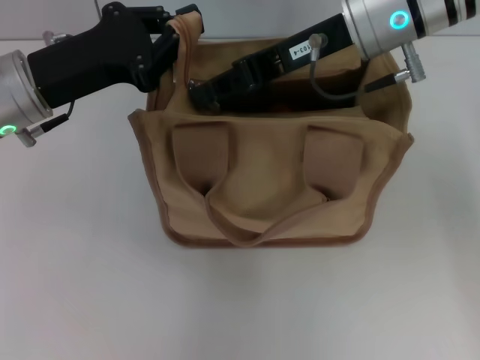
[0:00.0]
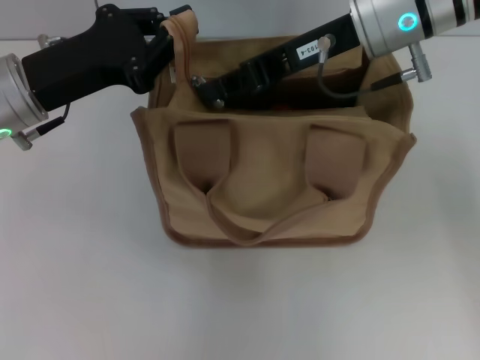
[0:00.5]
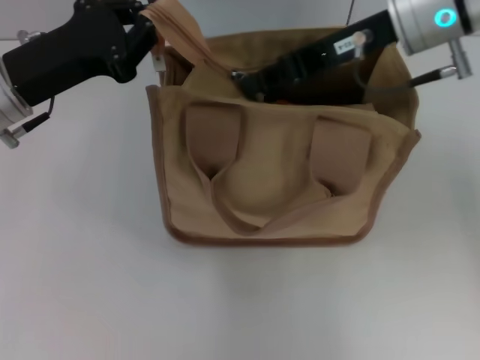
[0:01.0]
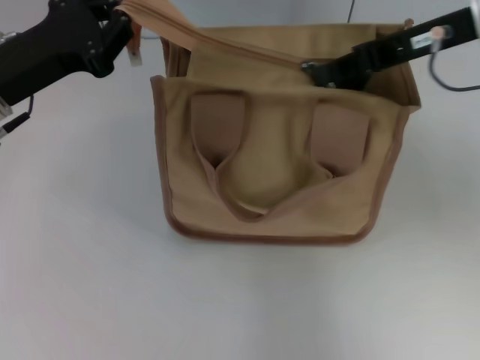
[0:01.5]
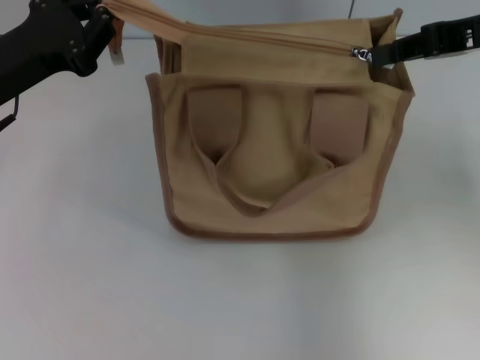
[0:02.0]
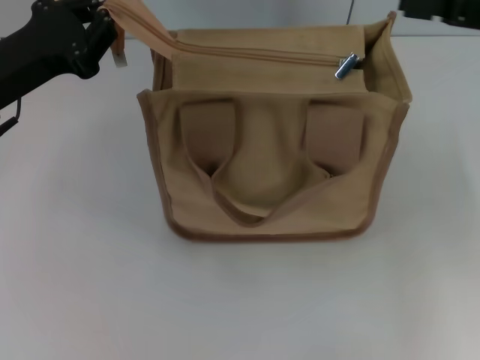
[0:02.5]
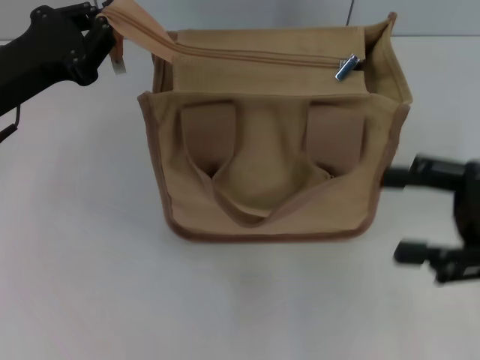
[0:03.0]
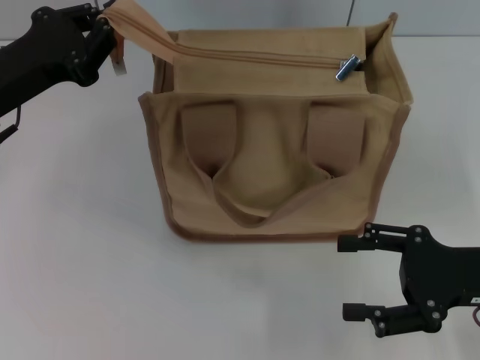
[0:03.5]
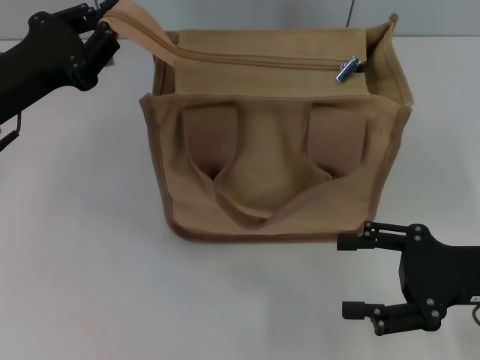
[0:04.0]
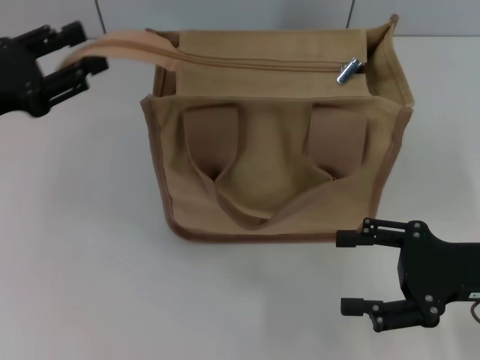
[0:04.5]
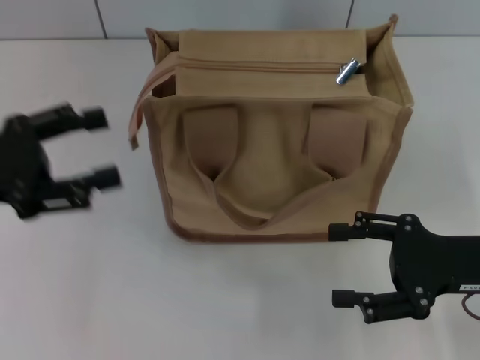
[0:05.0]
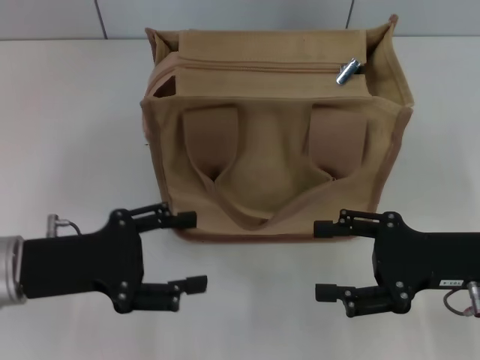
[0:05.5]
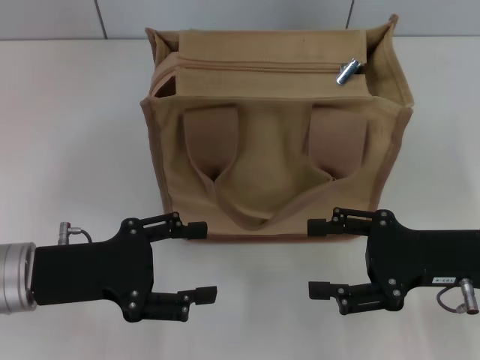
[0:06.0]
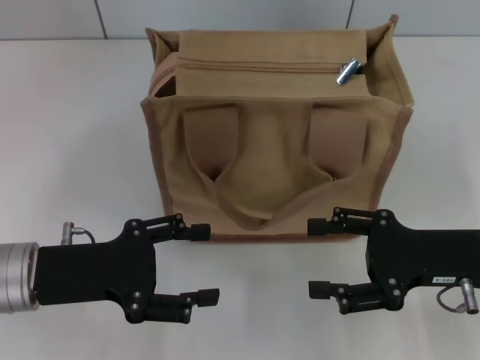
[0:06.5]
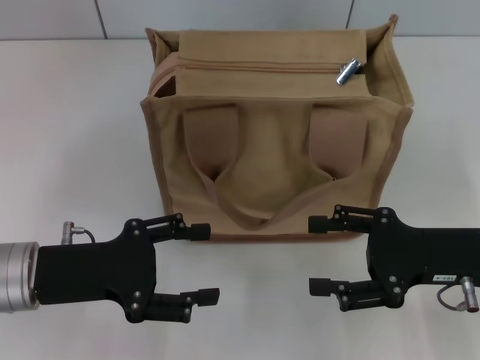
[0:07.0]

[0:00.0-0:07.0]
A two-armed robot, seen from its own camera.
Step, 0.0 to 2.0 s: Pull up the zipper with your right hand.
Step, 2.5 to 4.5 s: Grab the zipper with your left hand.
0.0 to 2.0 s: The right gripper is displaced to the right by roughly 15 cm.
2.0 to 3.5 s: The right gripper shifts approximately 20 cm downward and backward, and opens its fingers.
3.5 to 5.0 s: The left gripper shifts some 5 cm backward, and opens up.
5.0 to 7.0 s: The left gripper moves downward and to the right, approximately 10 cm.

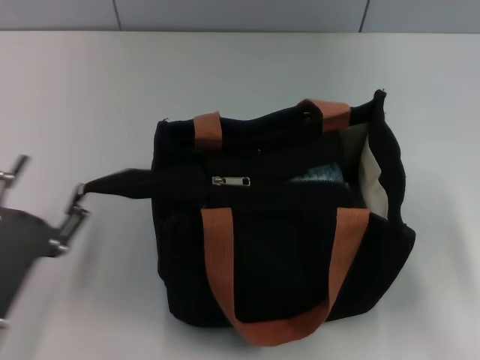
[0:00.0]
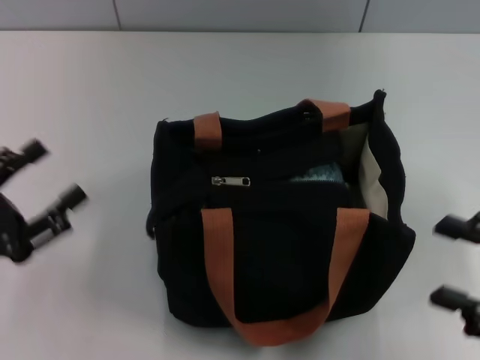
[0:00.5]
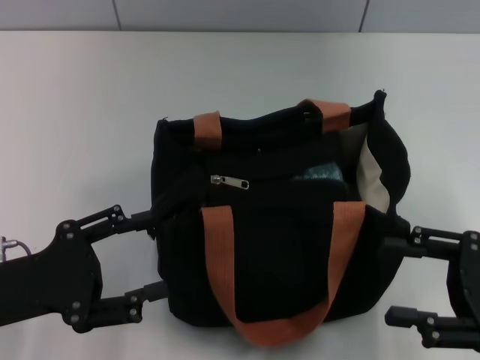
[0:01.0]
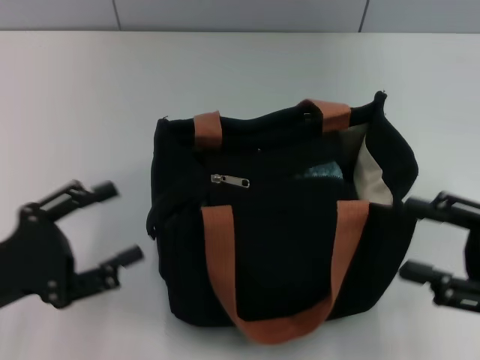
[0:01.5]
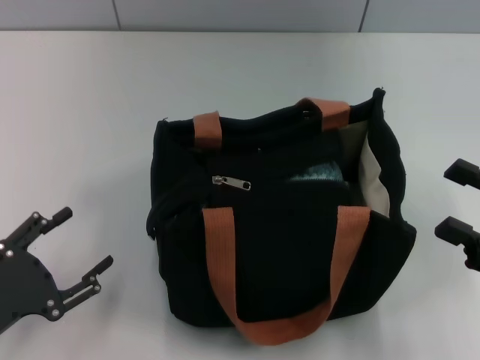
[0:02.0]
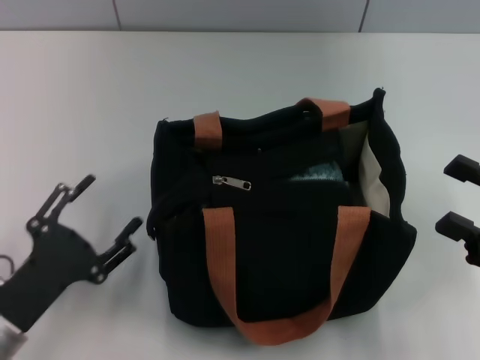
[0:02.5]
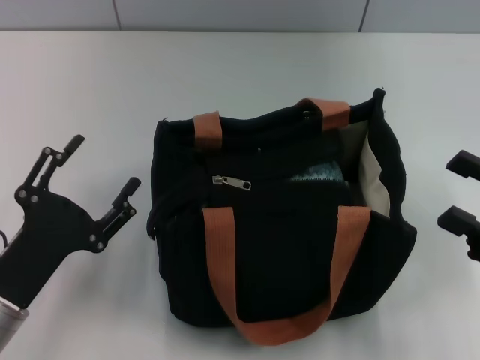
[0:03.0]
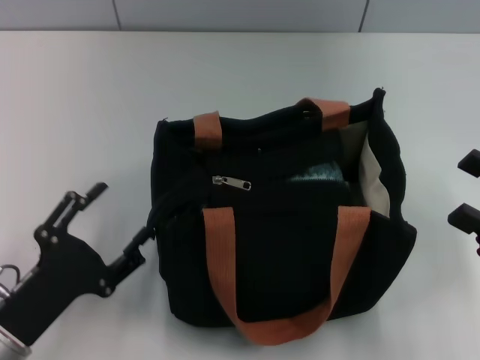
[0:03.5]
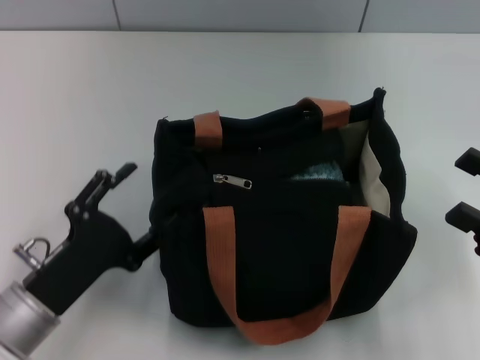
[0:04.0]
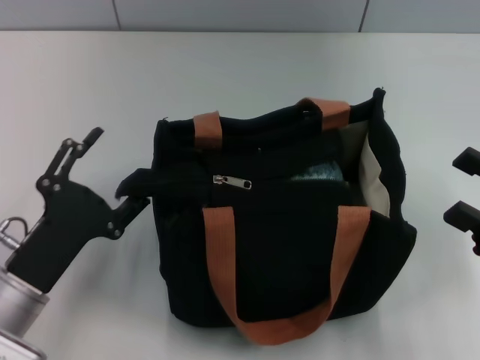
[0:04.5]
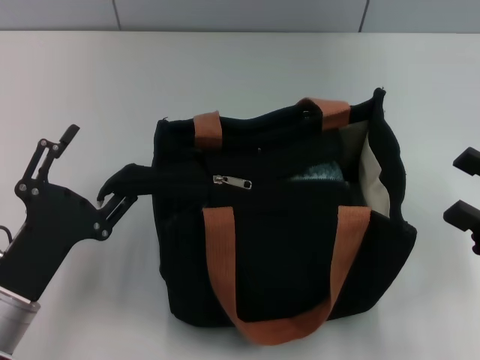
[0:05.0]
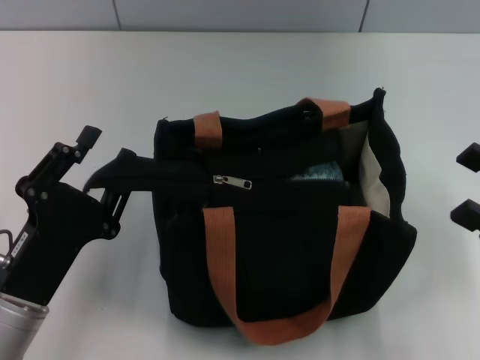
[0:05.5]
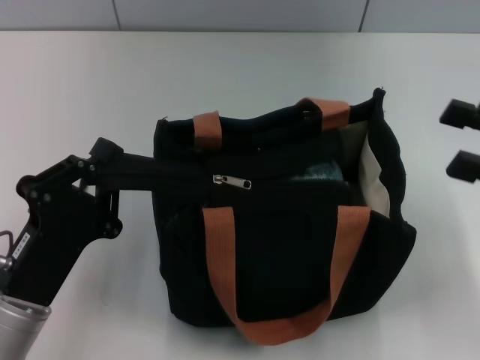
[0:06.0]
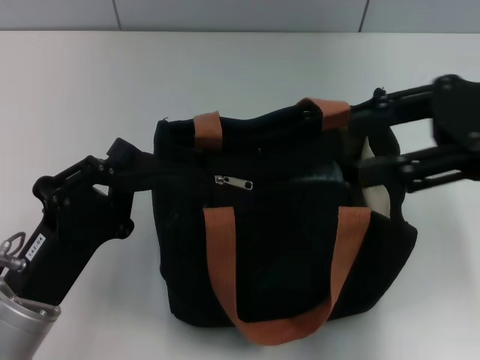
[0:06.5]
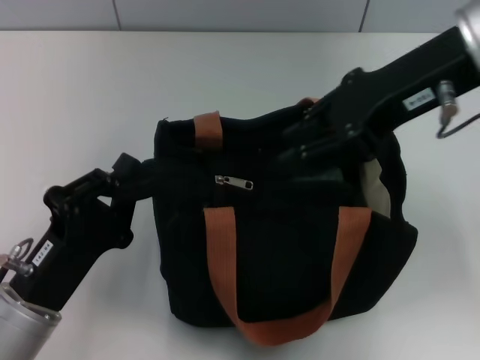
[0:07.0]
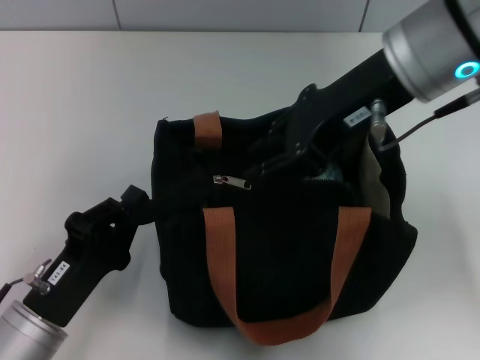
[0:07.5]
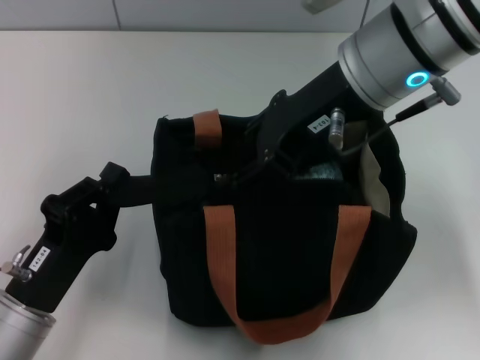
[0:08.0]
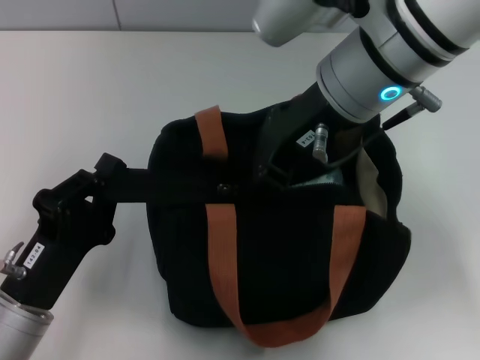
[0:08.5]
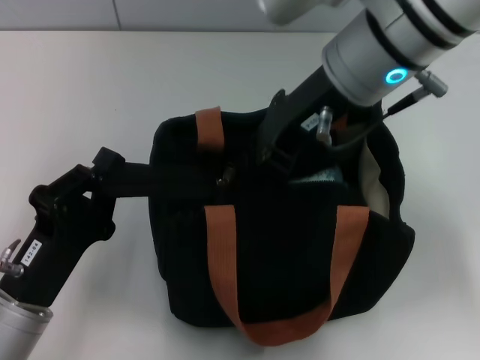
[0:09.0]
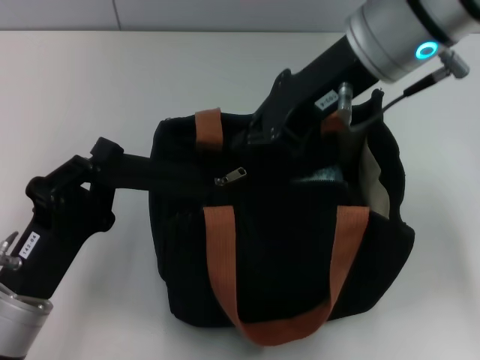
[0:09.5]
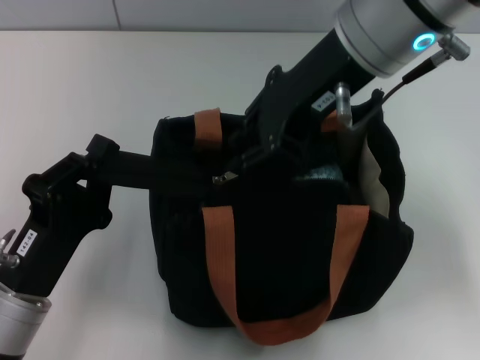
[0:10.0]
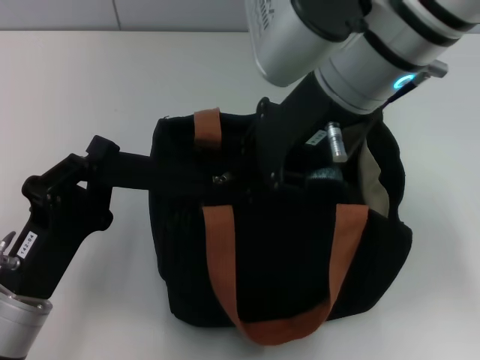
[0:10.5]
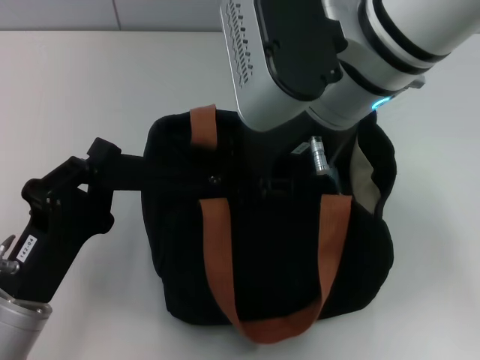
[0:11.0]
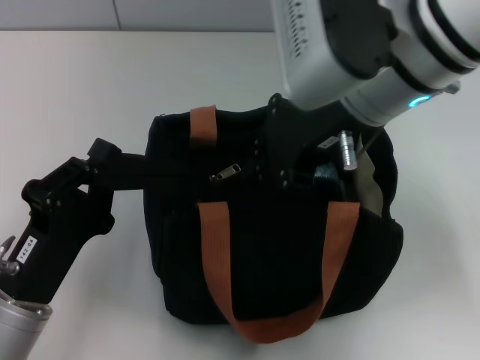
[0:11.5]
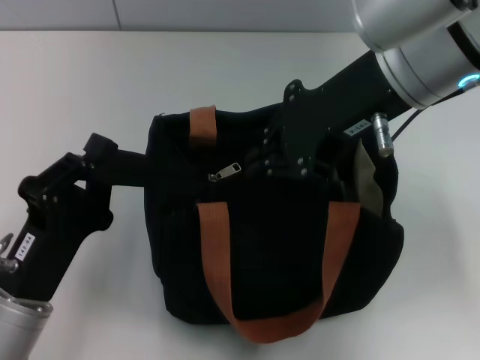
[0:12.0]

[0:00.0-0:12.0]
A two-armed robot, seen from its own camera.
0.0 to 2.0 s: The right gripper ends up some 5 cm from where it was.
2.0 to 4.0 s: The left gripper goes about 10 cm to the right.
4.0 to 6.0 s: The right gripper goes some 10 cm upward and forward, while the left gripper closes its fingers.
6.0 to 8.0 s: The right gripper is displaced to the left, forward and upward by about 25 cm, and closes.
8.0 to 10.0 s: There are only small adjustments of the grippers.
10.0 to 12.0 s: The grippers stay close to where they were, moving slightly.

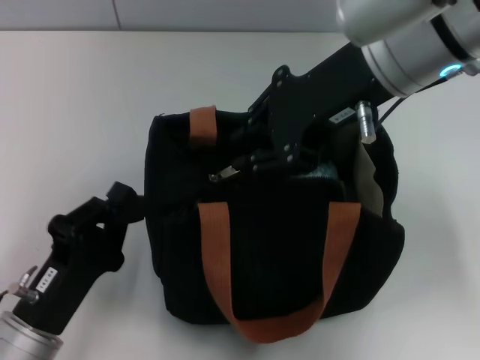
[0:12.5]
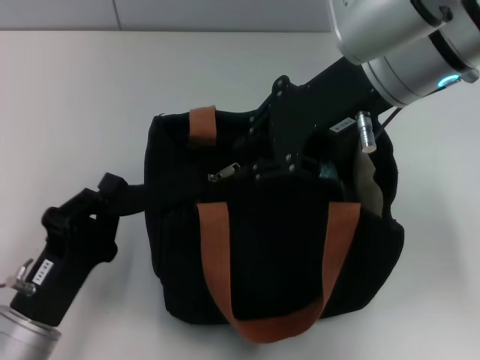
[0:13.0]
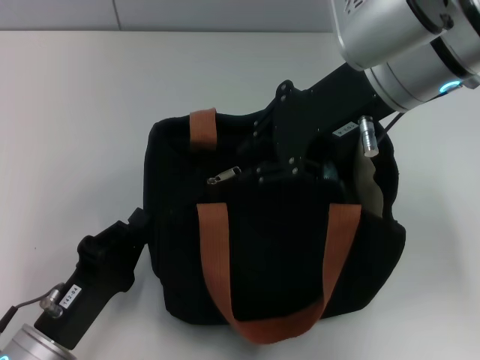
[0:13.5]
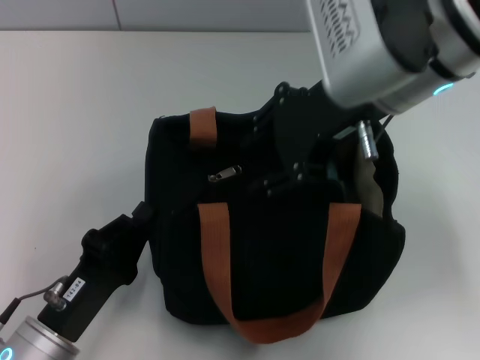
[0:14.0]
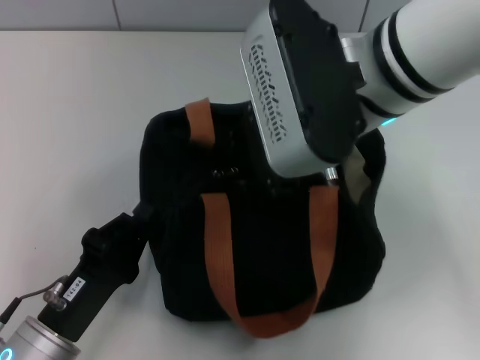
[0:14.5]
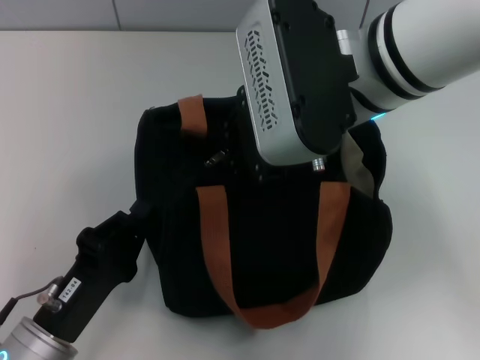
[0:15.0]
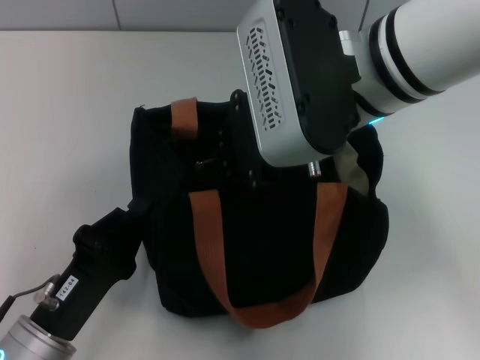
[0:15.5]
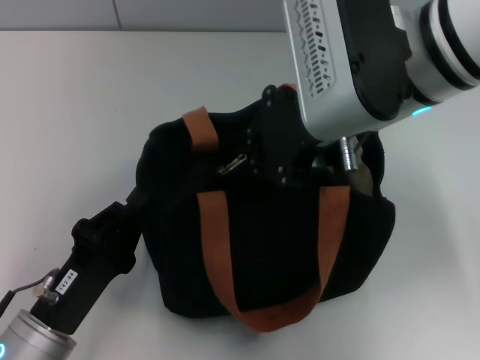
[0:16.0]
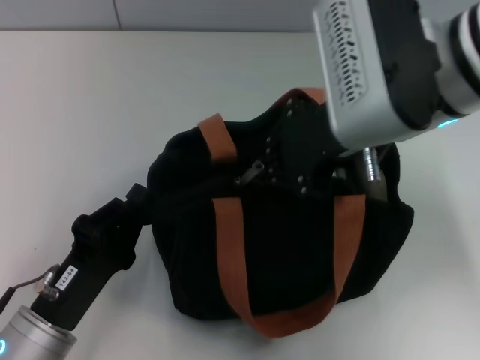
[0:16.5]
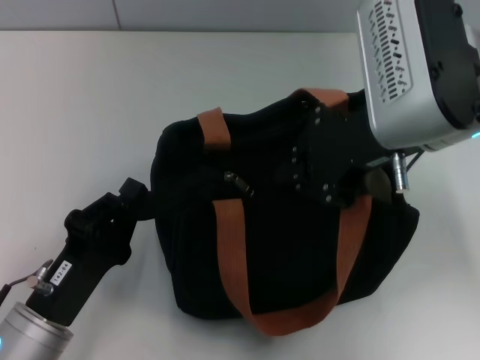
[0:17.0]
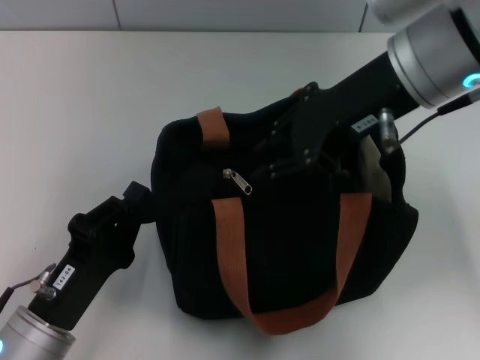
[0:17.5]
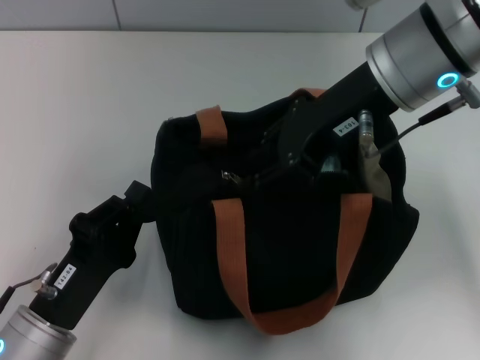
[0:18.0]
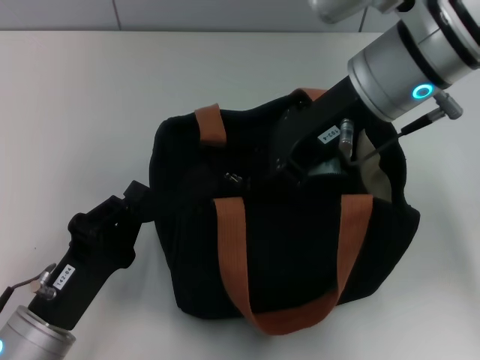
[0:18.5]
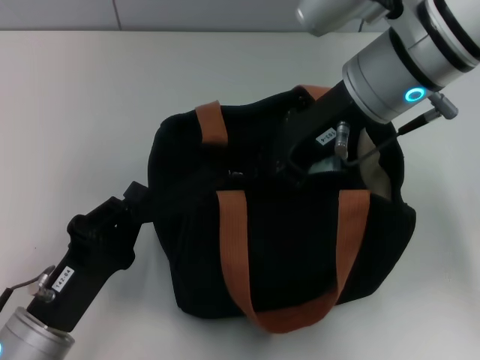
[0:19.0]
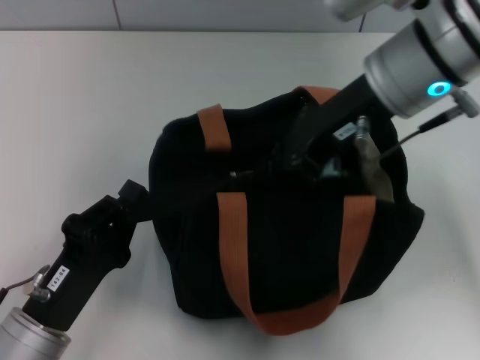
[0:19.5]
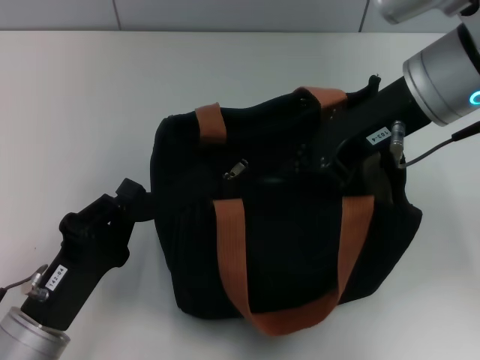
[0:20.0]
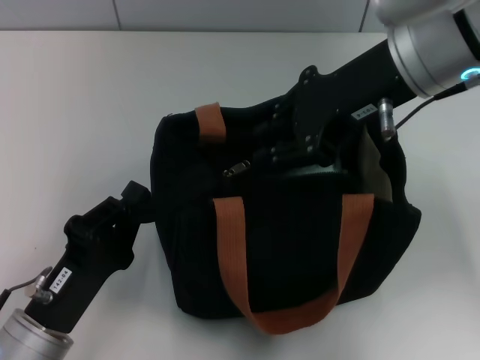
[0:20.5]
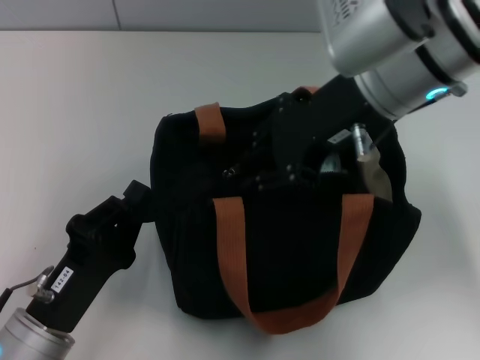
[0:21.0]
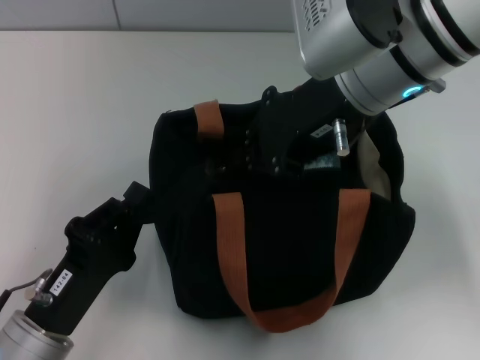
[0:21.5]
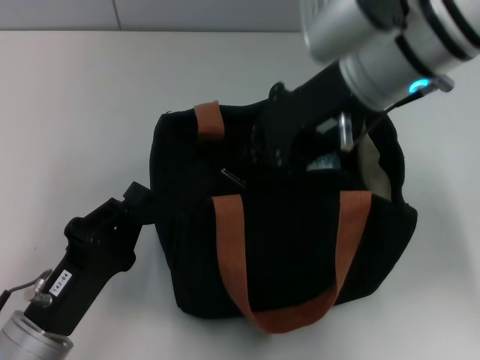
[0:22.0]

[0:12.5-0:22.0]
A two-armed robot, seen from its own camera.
12.5 to 14.5 s: The right gripper shifts by some 5 cm.
14.5 to 16.5 s: The right gripper closes its fingers.
16.5 to 18.0 s: The right gripper opens its fingers.
18.0 to 20.0 s: The right gripper closes its fingers.
20.0 to 22.0 s: The right gripper opens, then closes once more.
